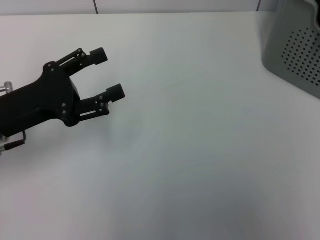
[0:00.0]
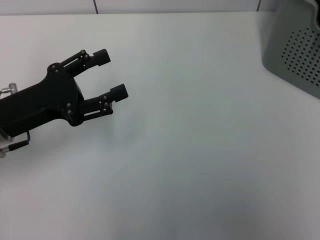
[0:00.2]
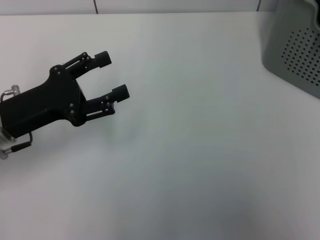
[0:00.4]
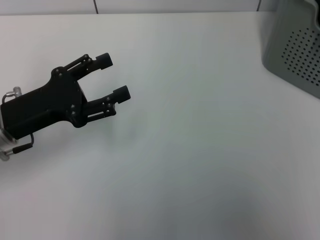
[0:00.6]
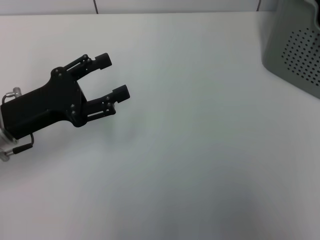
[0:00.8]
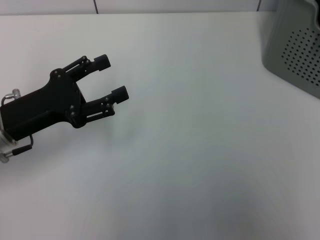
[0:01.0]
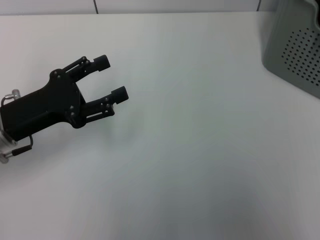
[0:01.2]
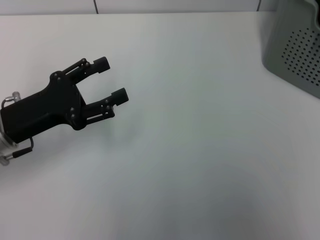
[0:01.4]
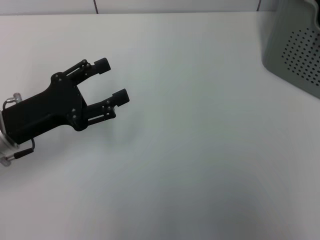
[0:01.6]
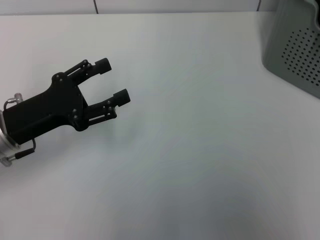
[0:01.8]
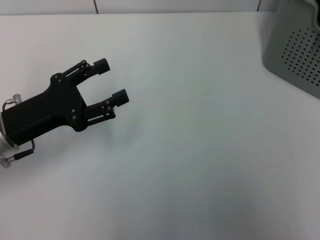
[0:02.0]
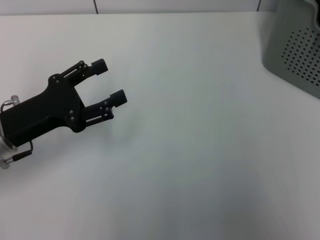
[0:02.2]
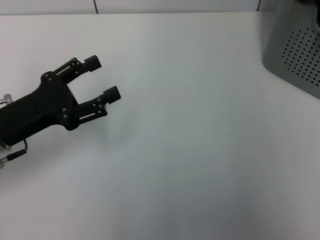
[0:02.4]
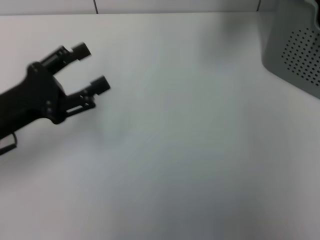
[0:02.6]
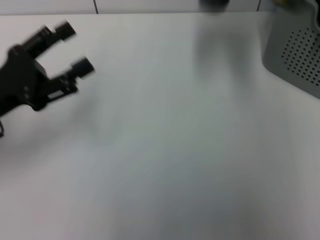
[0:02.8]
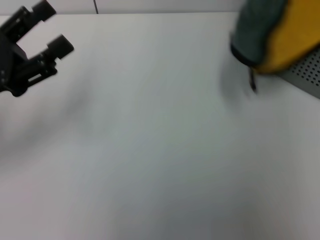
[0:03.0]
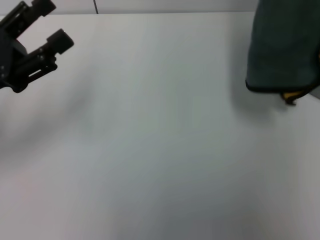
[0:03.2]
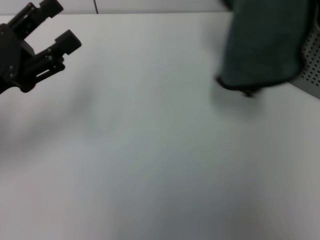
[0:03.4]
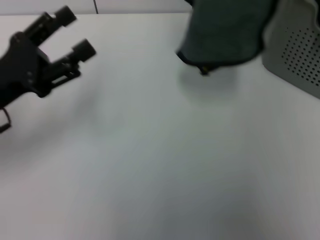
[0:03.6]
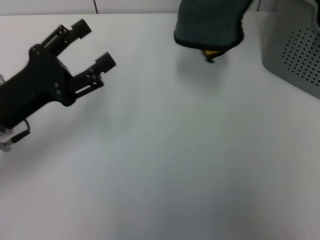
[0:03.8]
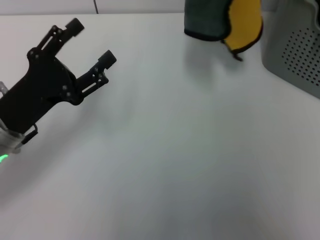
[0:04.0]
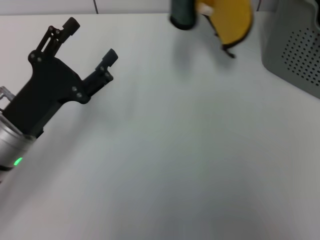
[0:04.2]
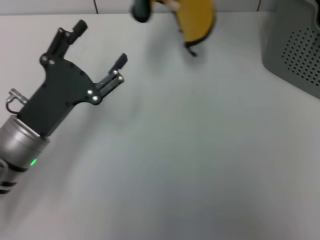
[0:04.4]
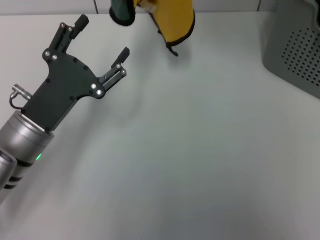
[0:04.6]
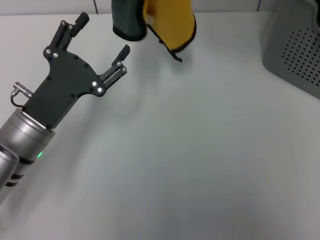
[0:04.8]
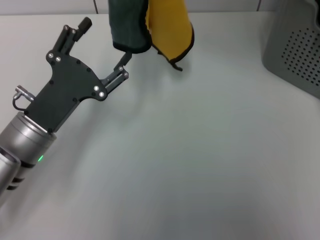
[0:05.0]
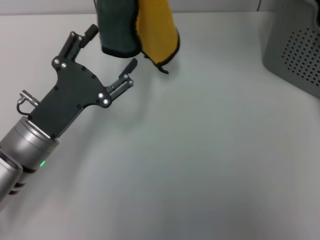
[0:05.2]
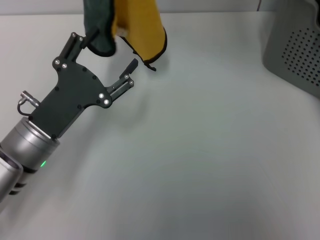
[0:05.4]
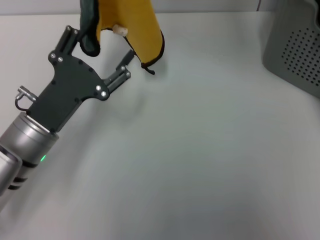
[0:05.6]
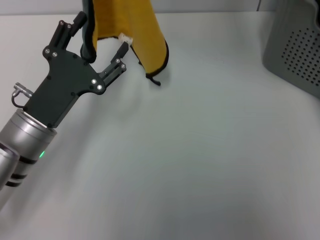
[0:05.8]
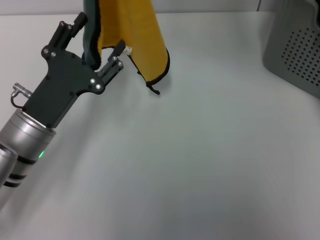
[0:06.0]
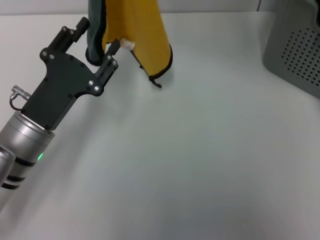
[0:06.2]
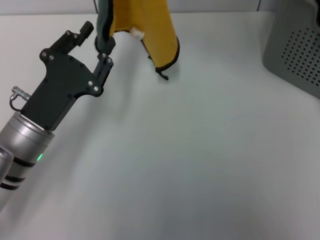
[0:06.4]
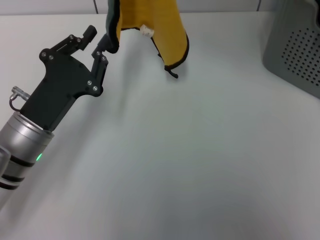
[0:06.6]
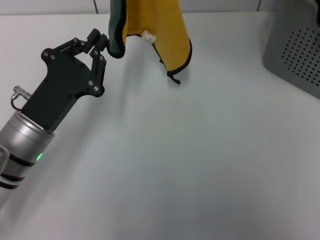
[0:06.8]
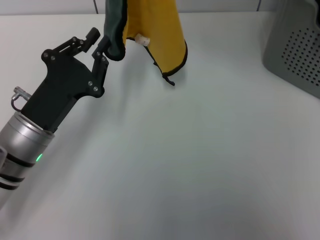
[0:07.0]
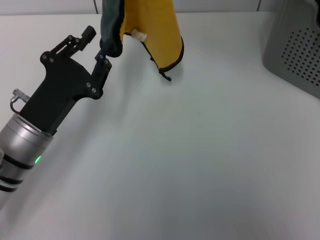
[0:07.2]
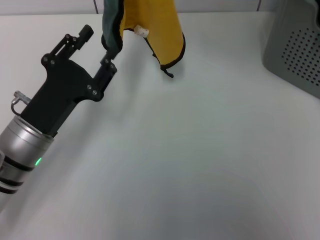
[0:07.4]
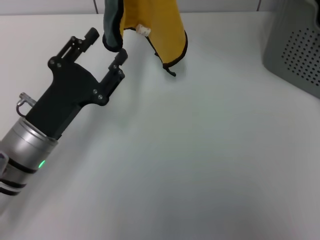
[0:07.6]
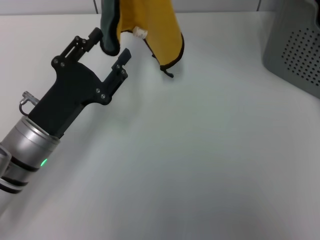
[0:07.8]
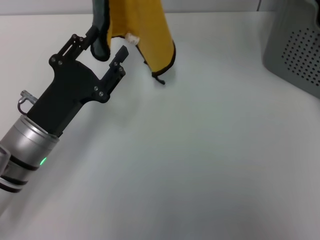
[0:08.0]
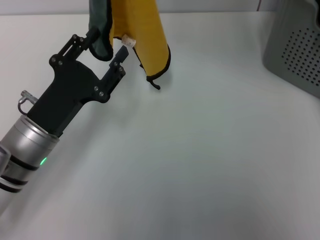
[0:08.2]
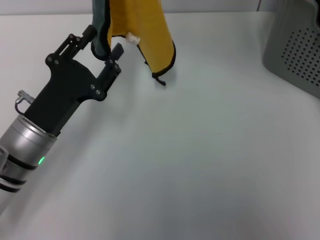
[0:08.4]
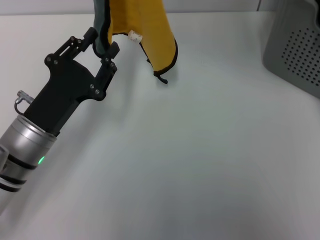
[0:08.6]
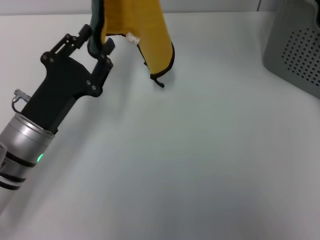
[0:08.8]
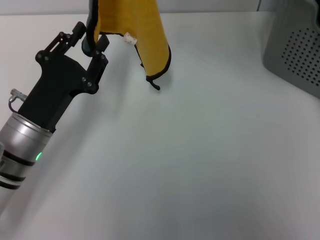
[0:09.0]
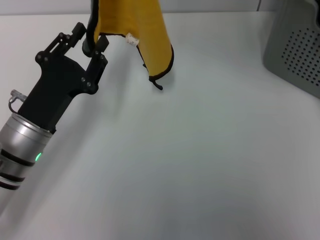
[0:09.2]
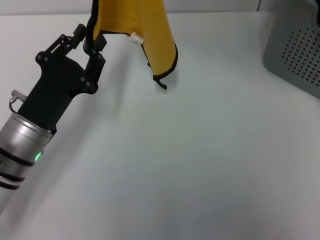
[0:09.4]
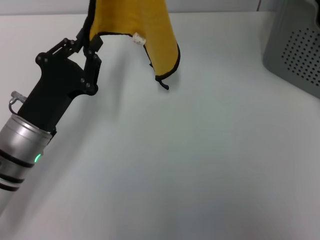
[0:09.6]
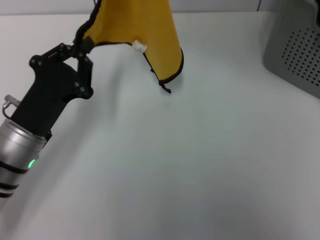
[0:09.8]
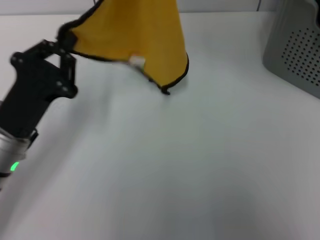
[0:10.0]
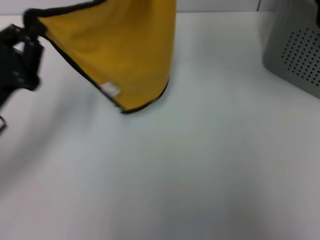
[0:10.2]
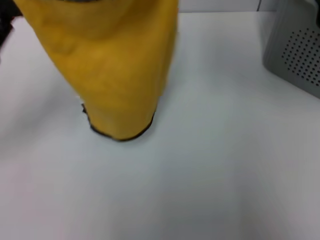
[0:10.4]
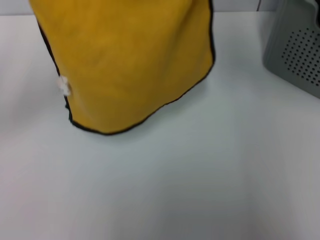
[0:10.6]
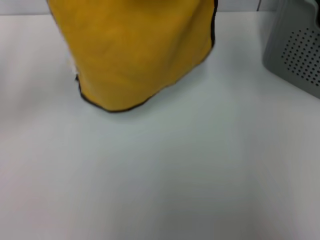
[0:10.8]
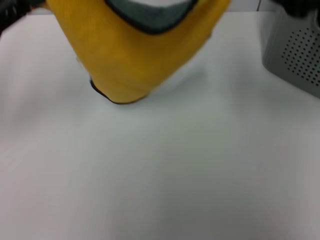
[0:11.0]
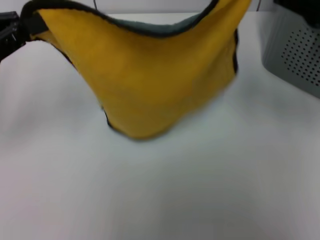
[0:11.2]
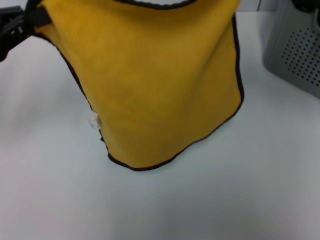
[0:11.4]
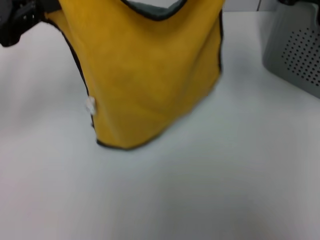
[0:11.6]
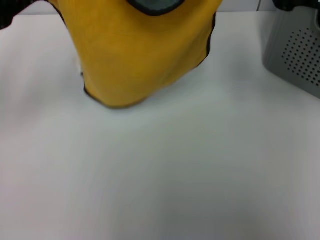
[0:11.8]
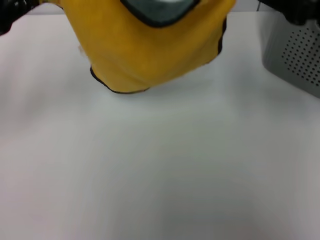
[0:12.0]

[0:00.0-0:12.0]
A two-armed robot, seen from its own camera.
Task of the whole recording: pick up the towel from the storage box and lay it flat on the table.
Step, 0:00.0 to 0:02.0: Pick up a towel with the right gripper.
Step, 0:02.2 to 0:09.8: Spread the towel flat with the right gripper.
0:00.0 to 0:01.6: The right gripper travels forward and downward by approximately 10 cm.
0:01.6 to 0:03.0: The right gripper travels backward by some 5 cm, and closes its fingers, while the left gripper shifts by approximately 5 cm.
0:03.0 to 0:04.4: The left gripper moves to the right and downward, some 10 cm. The right gripper goes roughly 15 cm to the left.
0:04.4 to 0:06.0: The right gripper moves to the left, about 5 cm.
0:06.0 to 0:07.6: The left gripper closes and opens again.
0:07.6 to 0:09.0: The grippers make only small movements.
0:09.0 to 0:10.4: The left gripper travels to the left and upward by some 15 cm, and closes up; the right gripper travels to the right and downward by some 10 cm.
0:10.4 to 0:12.0: The right gripper is displaced downward by about 5 cm, while the left gripper heads upward, covering some 5 cm.

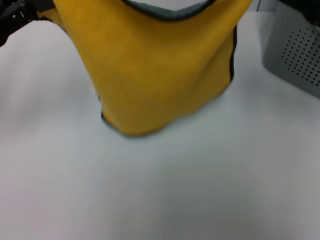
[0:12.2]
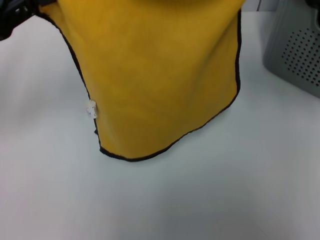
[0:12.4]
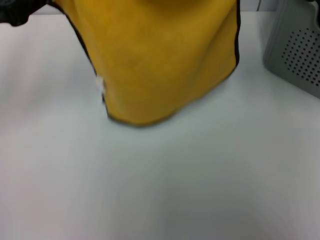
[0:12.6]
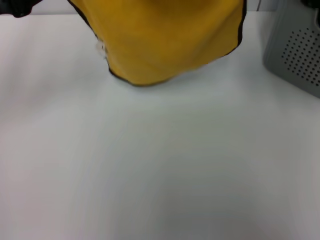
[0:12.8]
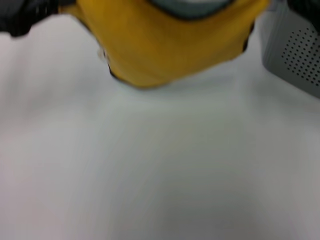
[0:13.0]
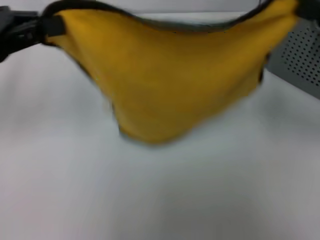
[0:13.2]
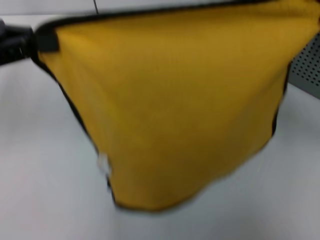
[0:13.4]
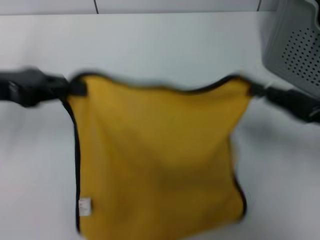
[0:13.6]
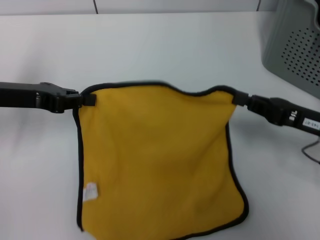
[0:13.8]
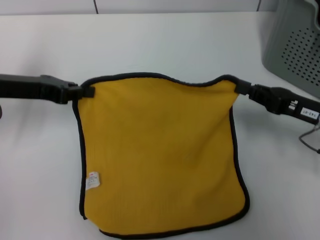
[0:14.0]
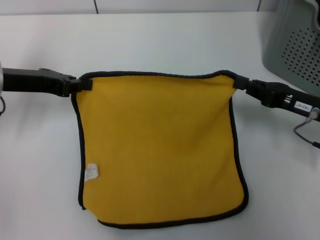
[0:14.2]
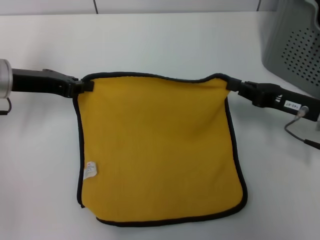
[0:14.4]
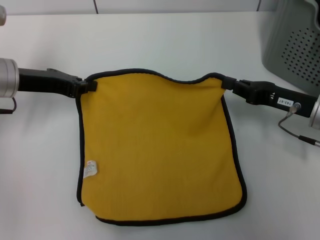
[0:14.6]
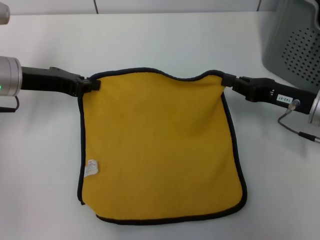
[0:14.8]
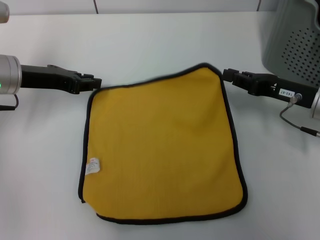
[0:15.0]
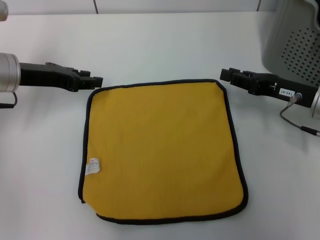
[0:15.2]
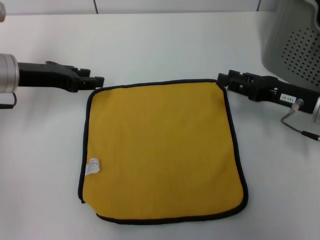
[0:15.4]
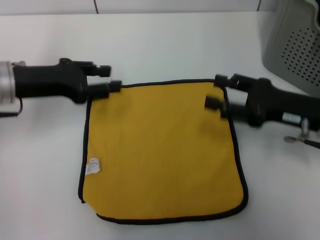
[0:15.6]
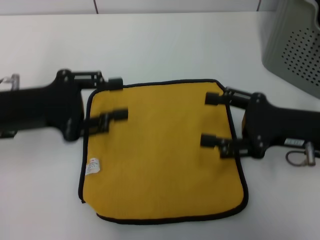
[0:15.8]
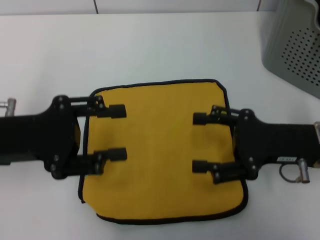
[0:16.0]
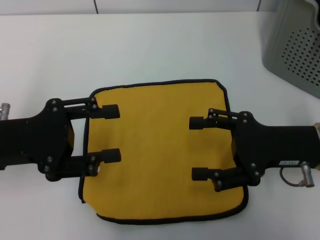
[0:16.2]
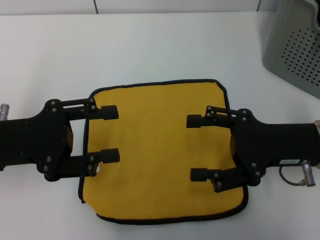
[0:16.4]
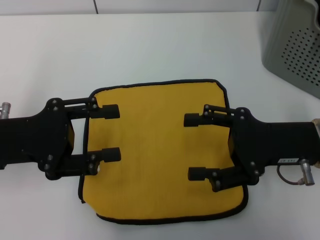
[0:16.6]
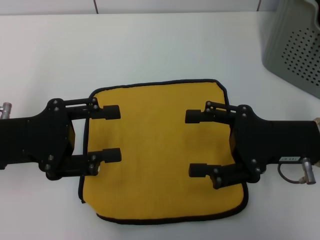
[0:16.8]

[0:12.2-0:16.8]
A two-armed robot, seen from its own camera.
Task of the whole recording: pick up the towel from the storage box and lay it flat on the table.
Step, 0:12.2 to 0:15.0: Spread the towel flat with the left gripper.
0:12.2 to 0:13.8: The right gripper heads downward, covering roughly 15 cm. Meanwhile the left gripper goes approximately 5 cm downward.
0:13.8 to 0:15.2: The right gripper heads forward, covering about 5 cm, while the left gripper moves approximately 5 cm.
0:15.2 to 0:16.8: The right gripper is displaced backward by roughly 5 cm, and opens, while the left gripper heads backward, covering some 10 cm, and opens its fingers.
